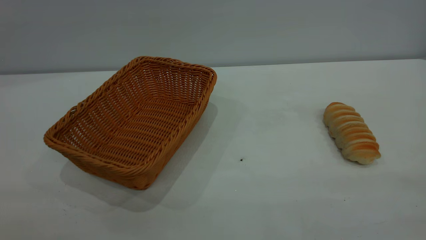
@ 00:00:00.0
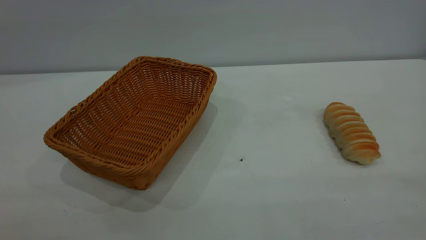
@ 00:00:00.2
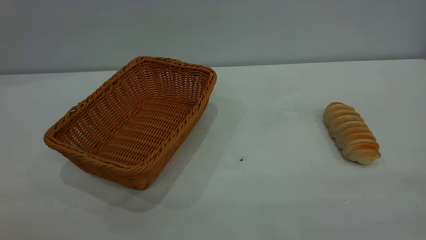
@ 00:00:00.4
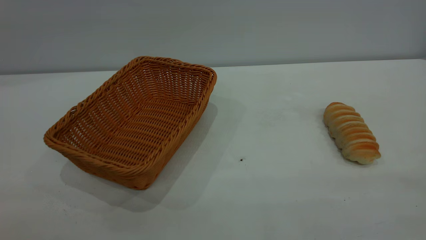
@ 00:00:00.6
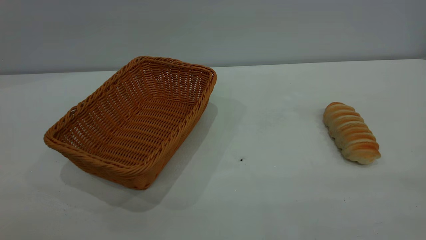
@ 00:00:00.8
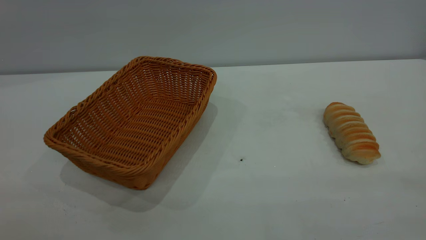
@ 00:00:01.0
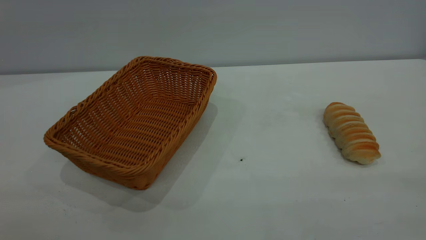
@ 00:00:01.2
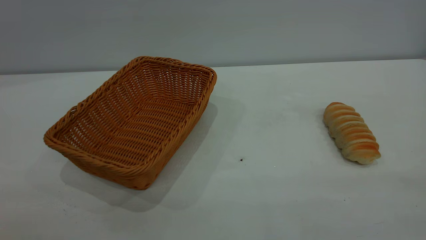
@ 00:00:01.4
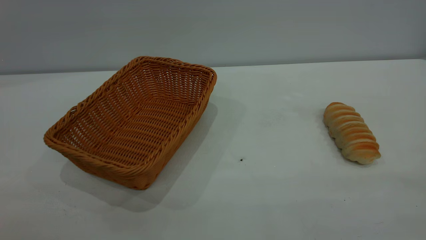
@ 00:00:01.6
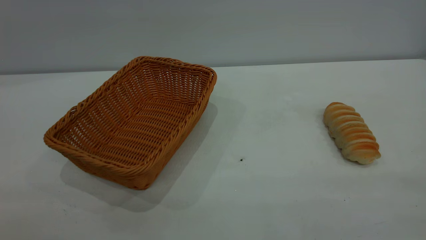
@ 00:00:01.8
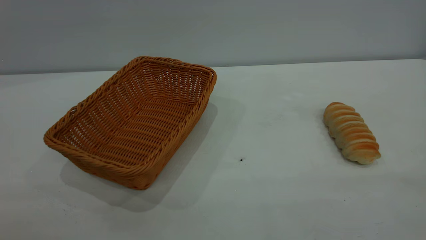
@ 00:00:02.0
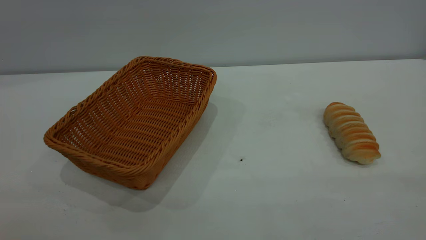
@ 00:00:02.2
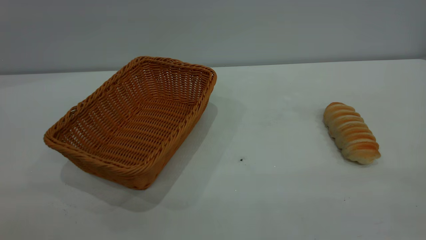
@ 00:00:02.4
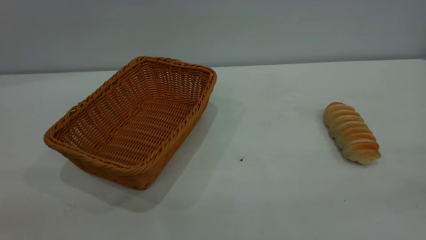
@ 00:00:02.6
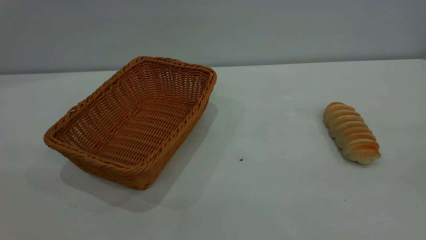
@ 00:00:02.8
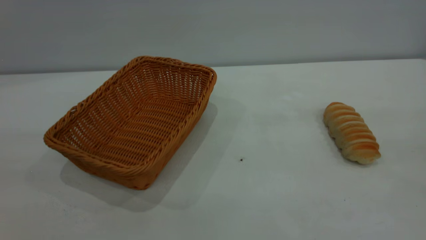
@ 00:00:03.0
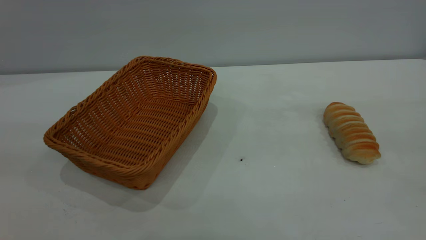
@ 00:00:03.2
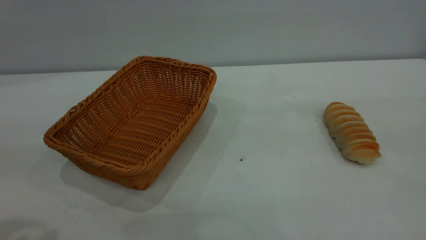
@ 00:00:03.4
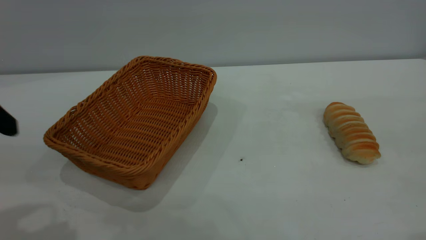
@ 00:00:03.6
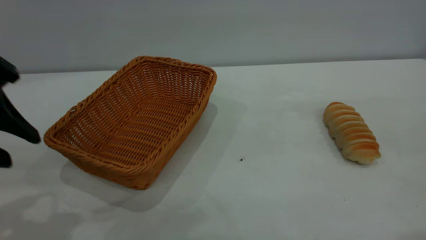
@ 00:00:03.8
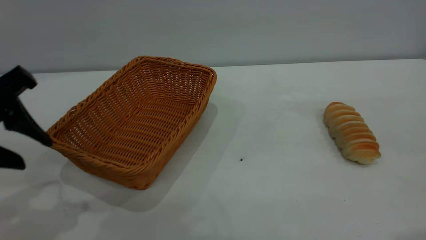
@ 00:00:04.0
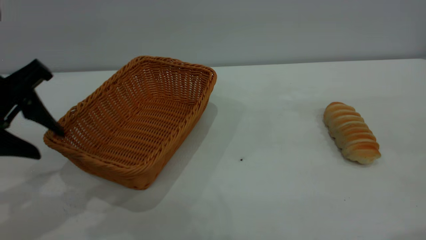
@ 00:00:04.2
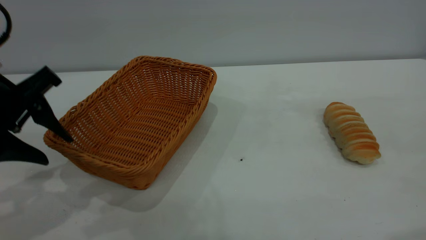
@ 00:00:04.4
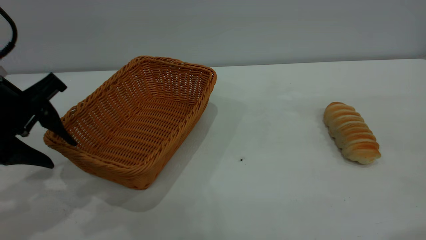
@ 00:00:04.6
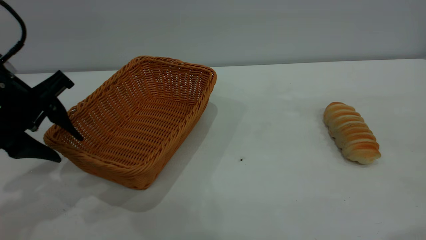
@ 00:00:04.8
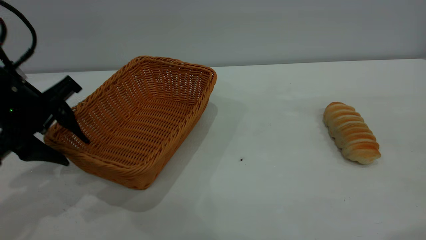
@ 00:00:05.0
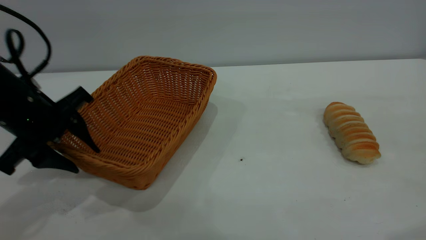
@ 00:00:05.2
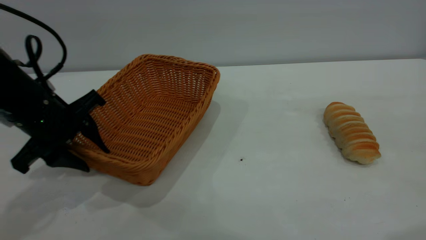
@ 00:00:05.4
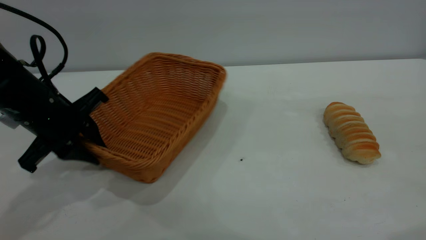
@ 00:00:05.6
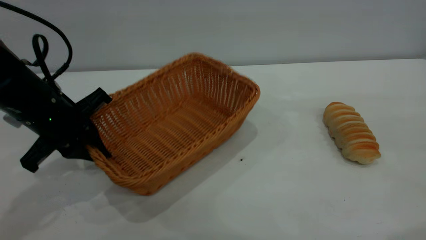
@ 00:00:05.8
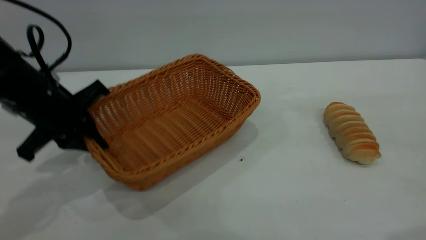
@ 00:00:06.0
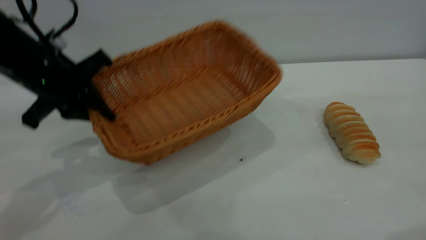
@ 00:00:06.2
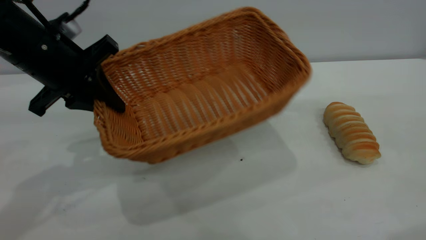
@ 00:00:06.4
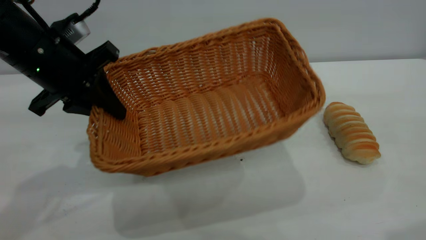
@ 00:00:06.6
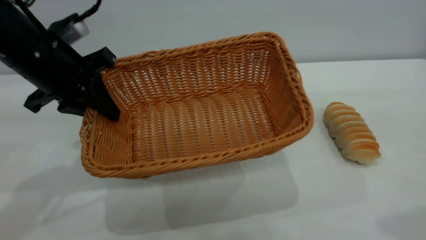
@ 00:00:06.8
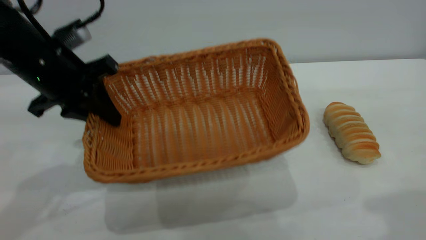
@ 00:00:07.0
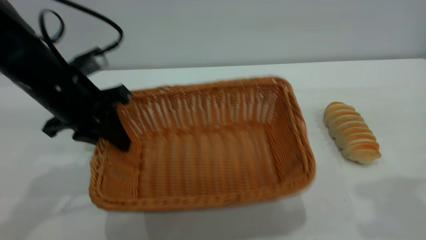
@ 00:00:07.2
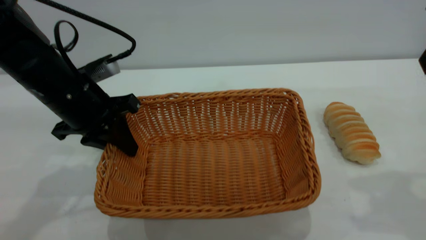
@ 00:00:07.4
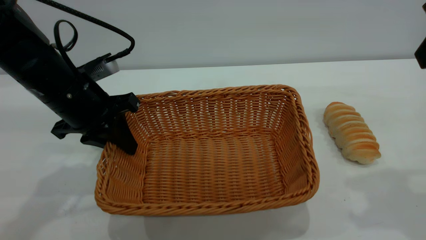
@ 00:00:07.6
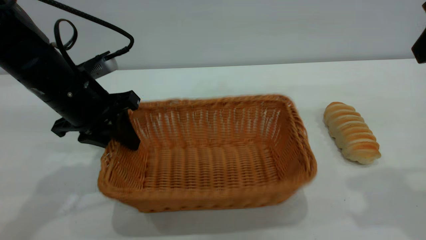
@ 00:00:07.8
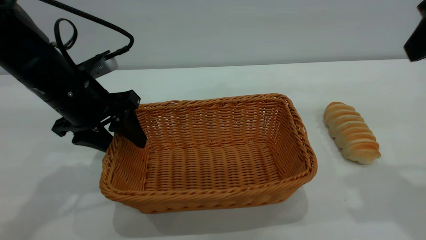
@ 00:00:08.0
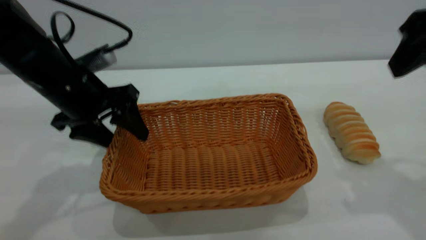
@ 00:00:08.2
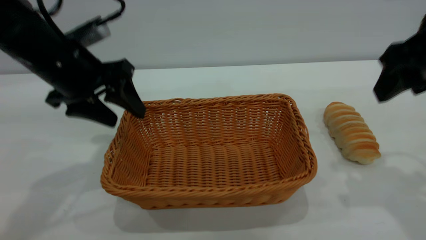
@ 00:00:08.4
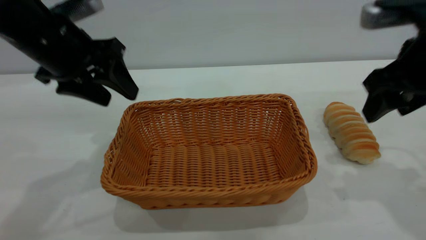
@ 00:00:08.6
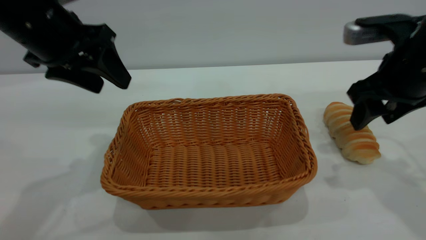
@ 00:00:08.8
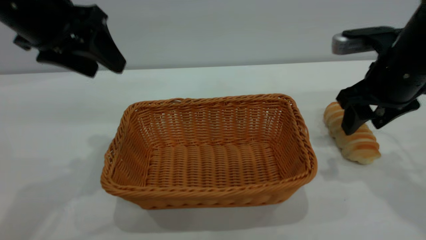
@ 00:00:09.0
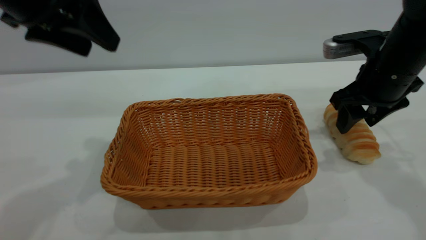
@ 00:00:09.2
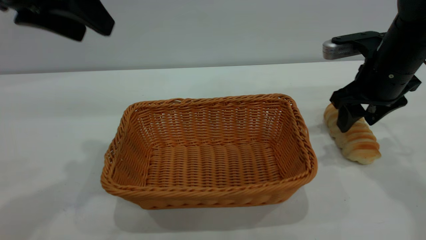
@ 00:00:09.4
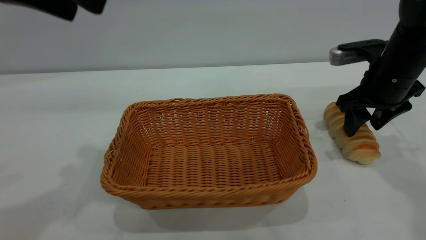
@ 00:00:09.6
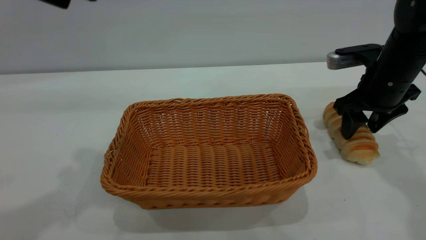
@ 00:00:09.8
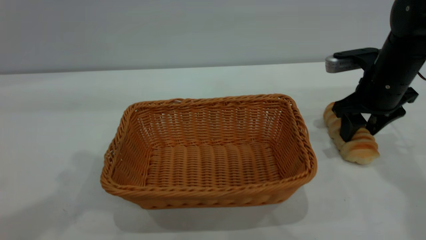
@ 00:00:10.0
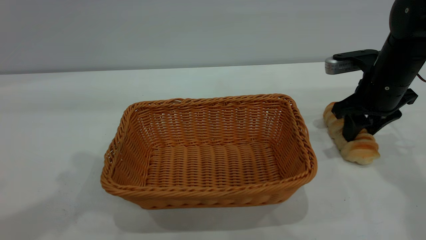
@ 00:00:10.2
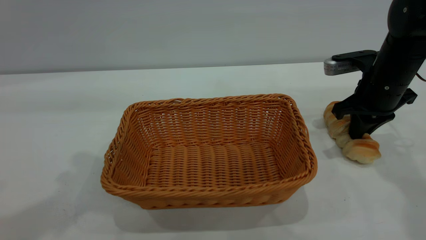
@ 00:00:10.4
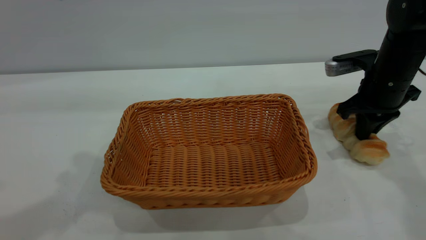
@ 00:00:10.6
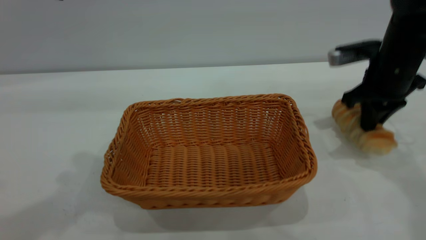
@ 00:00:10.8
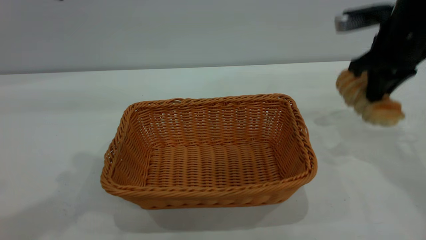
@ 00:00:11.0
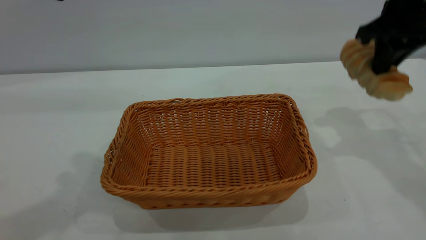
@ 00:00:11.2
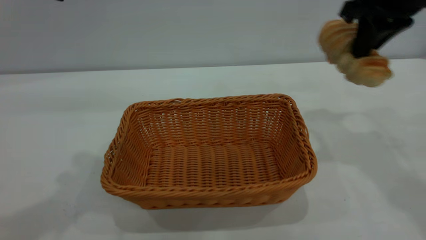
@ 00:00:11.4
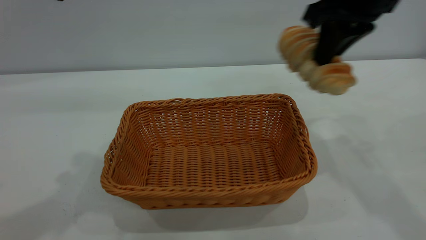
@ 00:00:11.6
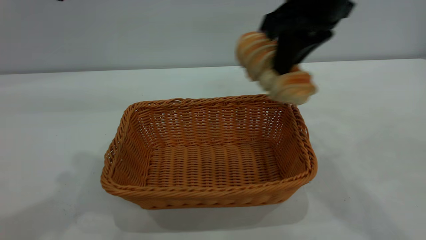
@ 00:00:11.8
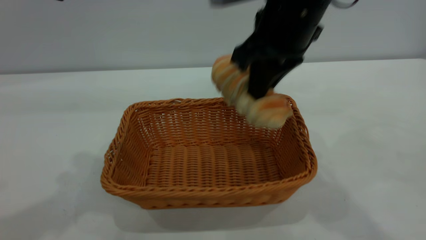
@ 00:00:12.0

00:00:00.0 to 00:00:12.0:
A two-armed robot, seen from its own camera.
Task of the whole recording: One hand grasps the yellow basket and places it in the middle of the table, while the other hand picks up the long bread and puts it into the yellow basket.
Step, 00:00:00.0 to 00:00:08.4: Move the basket to the center of view.
00:00:00.0 to 00:00:01.6: Both grippers stay put.
00:00:03.0 to 00:00:04.4: The left gripper heads forward and downward, covering about 20 cm.
00:00:04.4 to 00:00:06.0: The left gripper goes about 5 cm forward, and closes up.
00:00:06.0 to 00:00:07.6: The right gripper moves forward and downward, approximately 10 cm.
00:00:07.6 to 00:00:09.0: The right gripper shifts about 20 cm downward and forward, and opens its fingers. Meanwhile the left gripper travels upward by some 15 cm, and opens its fingers.
00:00:09.0 to 00:00:10.4: The left gripper shifts some 10 cm upward, while the right gripper shifts approximately 5 cm forward, and closes.
00:00:10.4 to 00:00:12.0: The right gripper travels to the left and upward by some 20 cm.

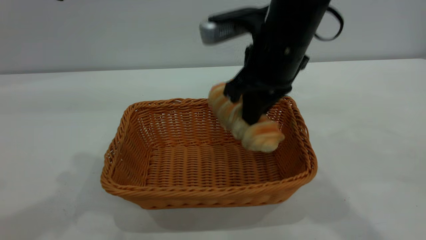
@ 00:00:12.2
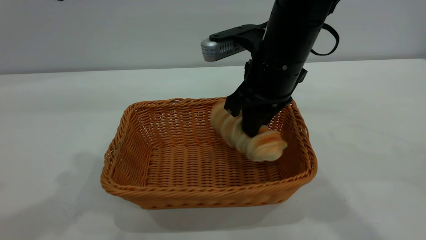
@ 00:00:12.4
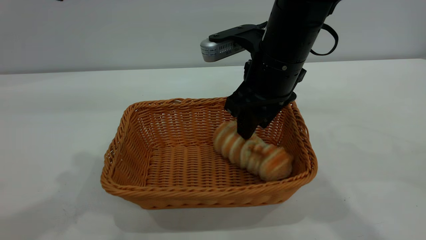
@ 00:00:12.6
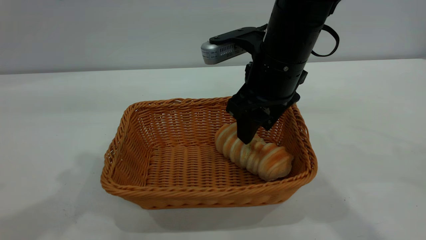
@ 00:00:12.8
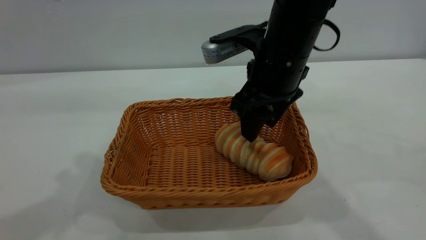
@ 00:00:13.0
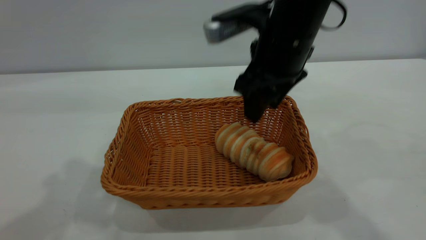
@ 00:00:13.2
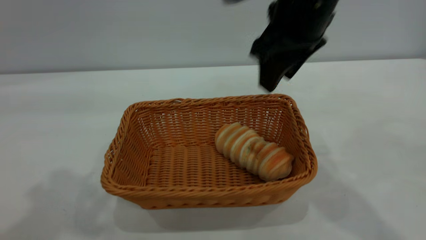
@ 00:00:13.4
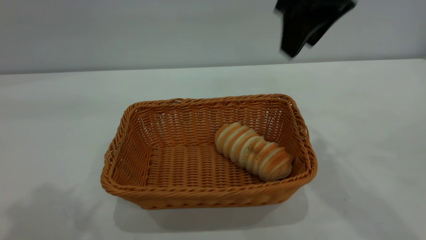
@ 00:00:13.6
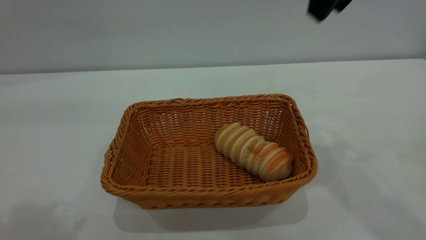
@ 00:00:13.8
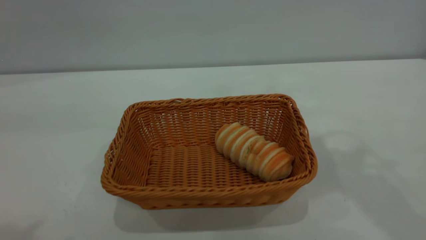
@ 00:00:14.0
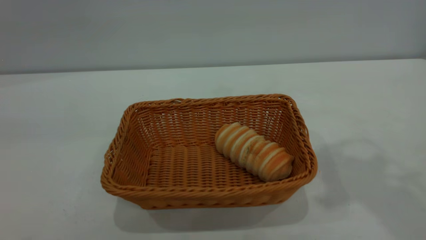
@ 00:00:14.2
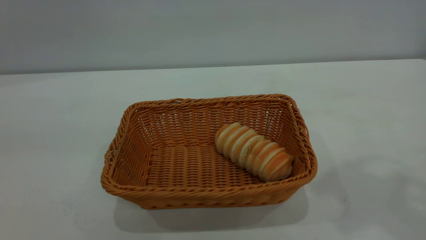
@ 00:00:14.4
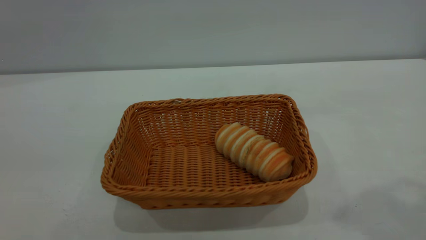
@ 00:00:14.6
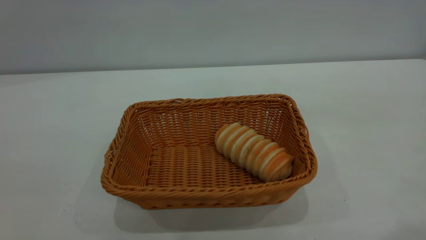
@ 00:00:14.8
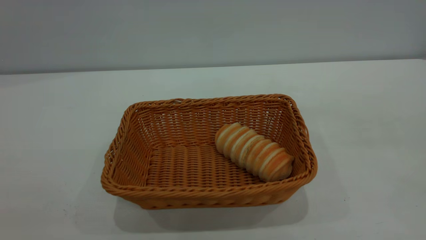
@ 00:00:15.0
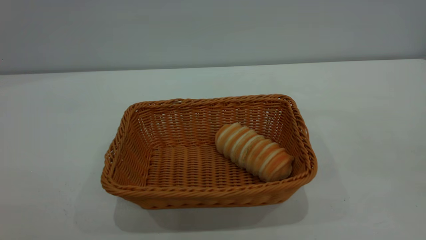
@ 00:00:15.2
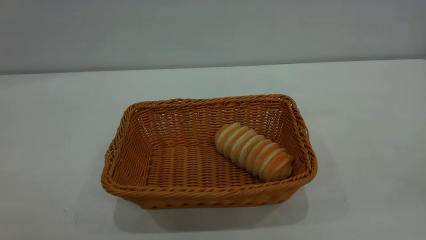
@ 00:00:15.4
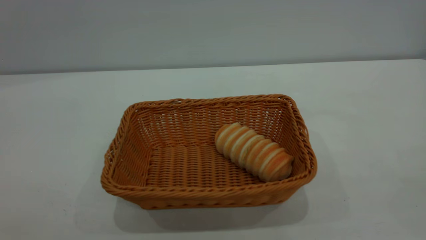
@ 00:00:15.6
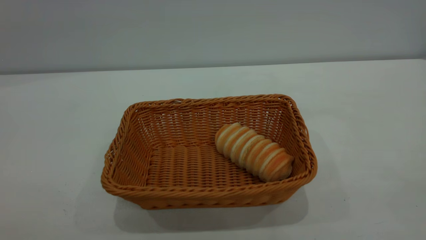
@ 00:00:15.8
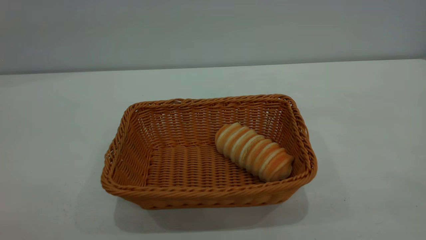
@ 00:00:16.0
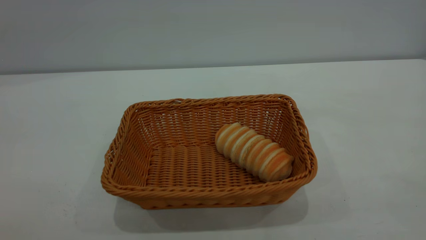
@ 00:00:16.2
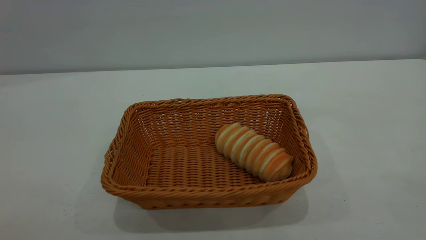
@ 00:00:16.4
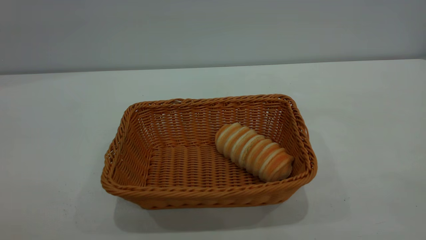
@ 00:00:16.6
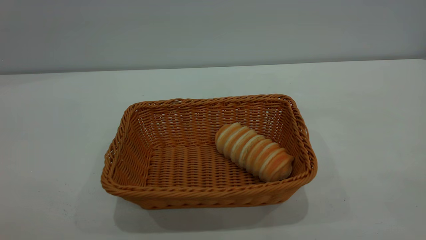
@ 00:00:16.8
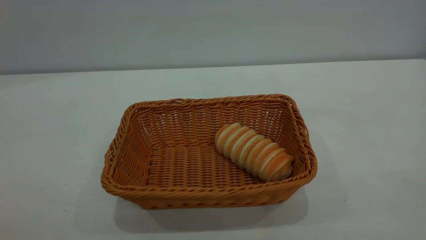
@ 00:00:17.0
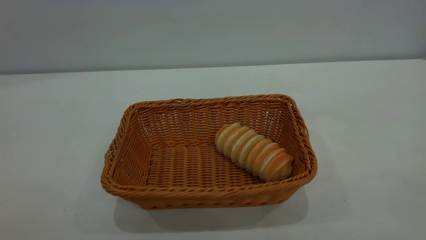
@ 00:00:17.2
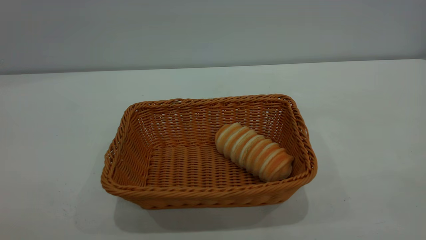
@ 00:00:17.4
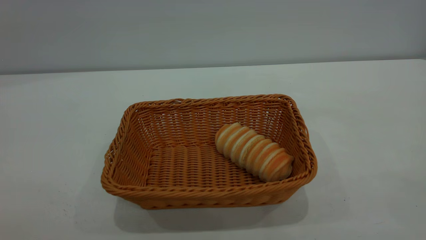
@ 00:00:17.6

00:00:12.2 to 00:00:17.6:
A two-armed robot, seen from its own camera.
Task of the whole recording: One hand grasps the yellow basket and places it in the middle of the table, while the other hand picks up the long bread and puts it into the yellow basket.
Step, 00:00:12.2 to 00:00:13.4: place the bread into the basket.
00:00:12.2 to 00:00:13.6: The right gripper heads upward and to the right, covering approximately 15 cm, and opens, while the left gripper is displaced backward and upward by about 10 cm.
00:00:13.6 to 00:00:15.0: The right gripper heads backward, upward and to the right, covering some 30 cm.
